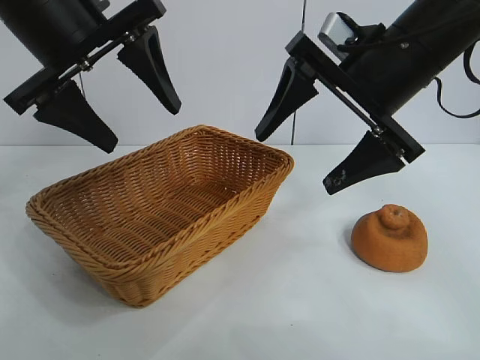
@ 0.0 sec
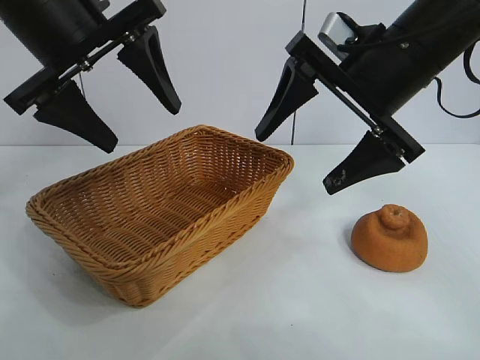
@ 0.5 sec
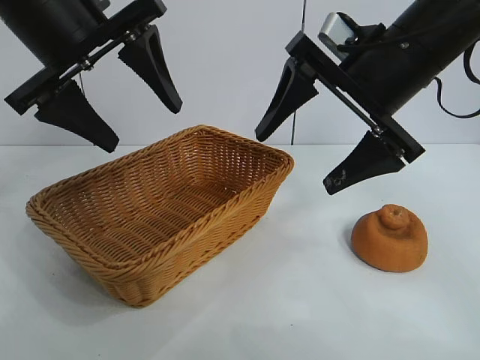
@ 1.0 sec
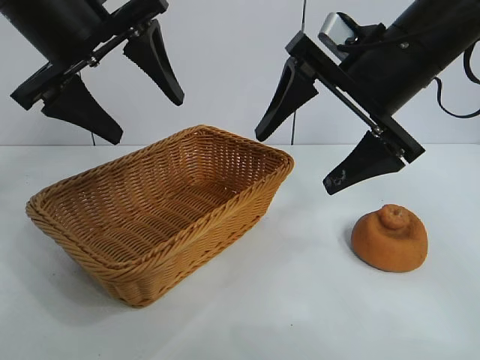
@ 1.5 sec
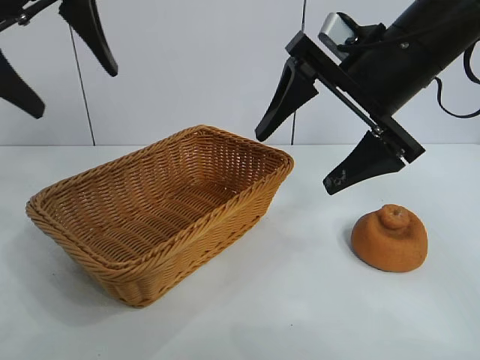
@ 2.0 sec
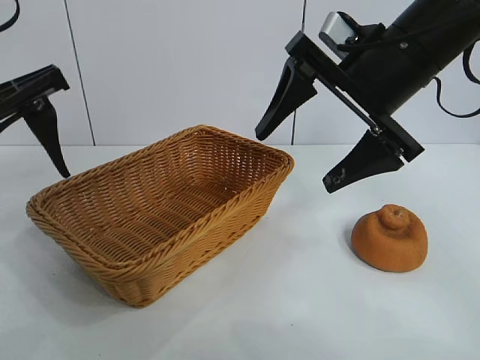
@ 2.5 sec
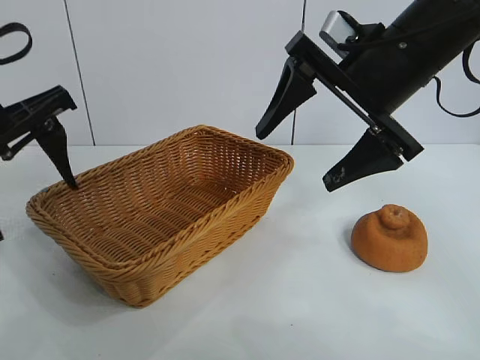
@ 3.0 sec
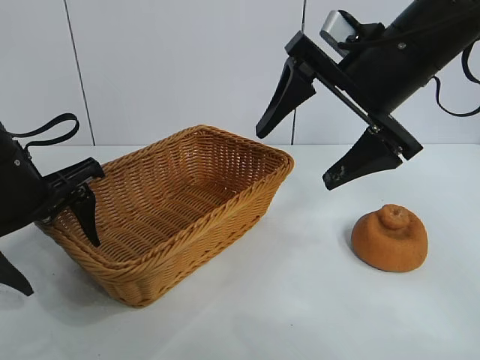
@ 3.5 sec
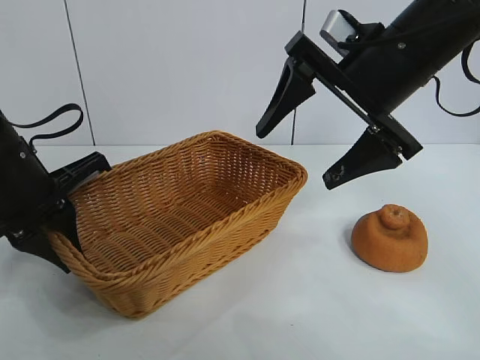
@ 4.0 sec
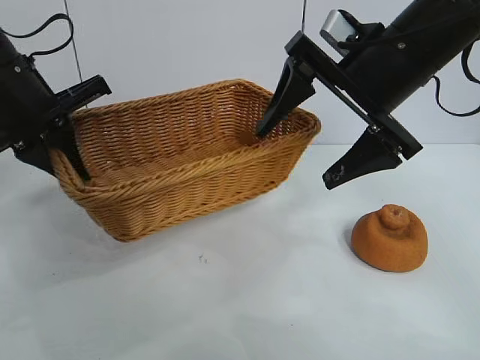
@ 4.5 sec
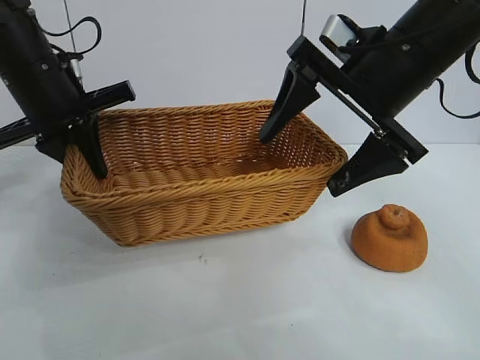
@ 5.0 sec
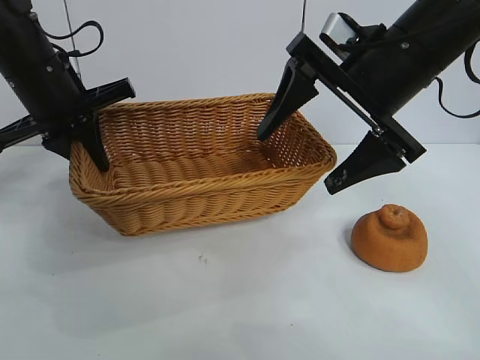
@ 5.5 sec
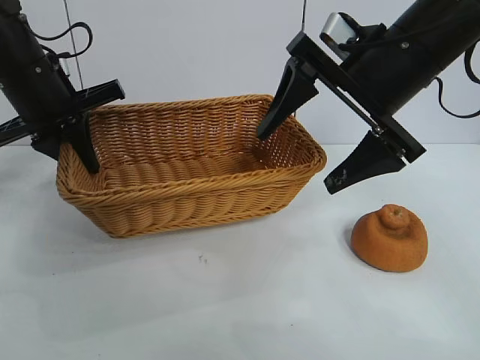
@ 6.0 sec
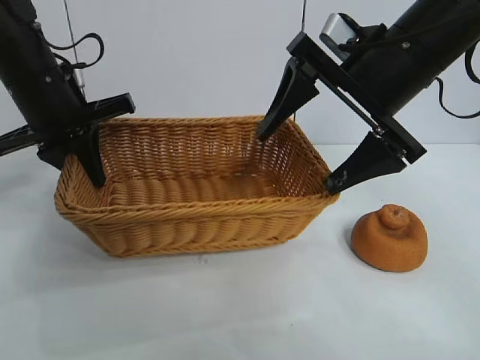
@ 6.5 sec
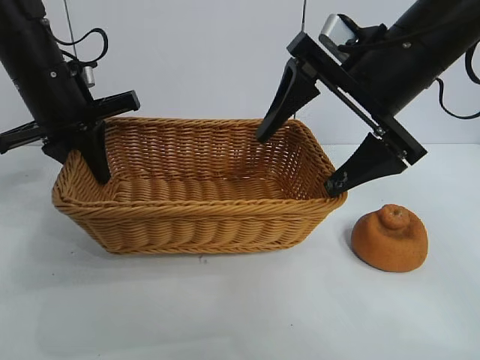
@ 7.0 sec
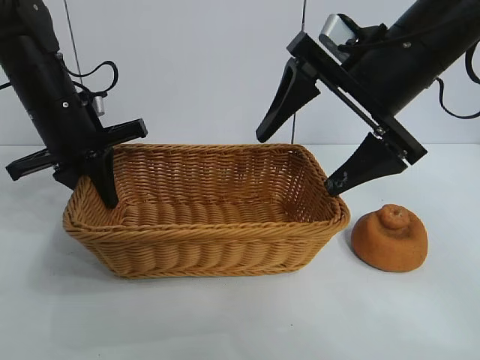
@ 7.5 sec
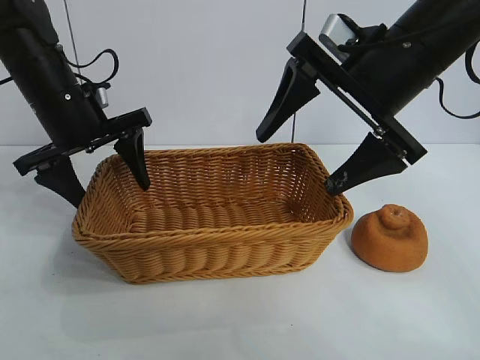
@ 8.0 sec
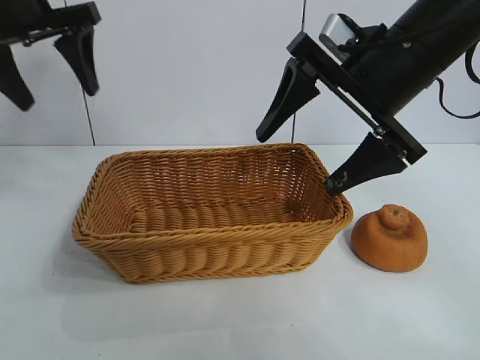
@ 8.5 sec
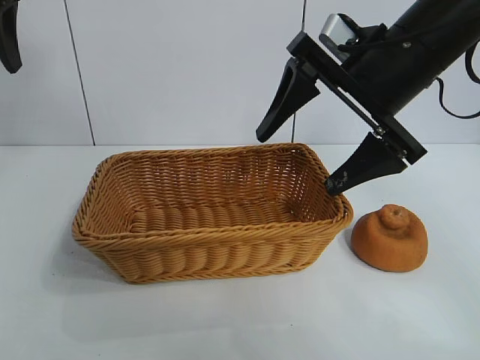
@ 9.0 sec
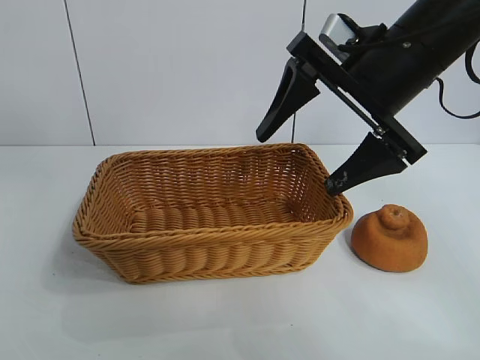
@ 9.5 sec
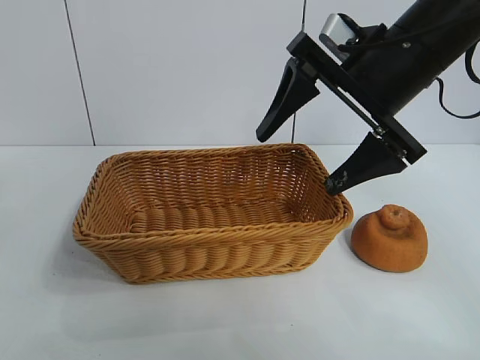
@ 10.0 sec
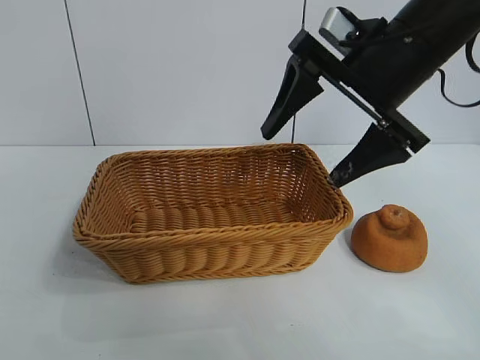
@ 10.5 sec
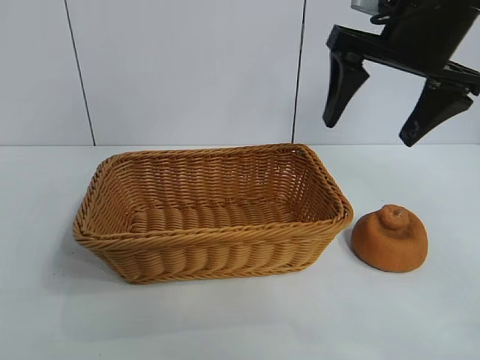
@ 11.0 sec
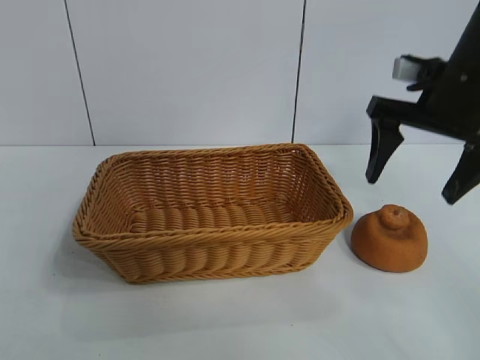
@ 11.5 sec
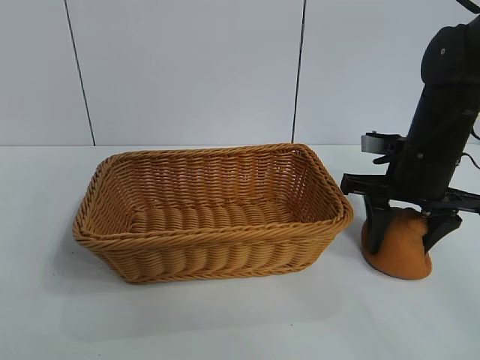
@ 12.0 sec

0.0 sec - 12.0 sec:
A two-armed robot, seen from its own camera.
Task of the whole recording: pick up the orange and put it into the basket.
Step, 1.0 sec - 3.5 sec: Grasp the basket with left gripper.
Step, 4.0 sec - 7.5 sec: Place the basket in the center of view with left gripper.

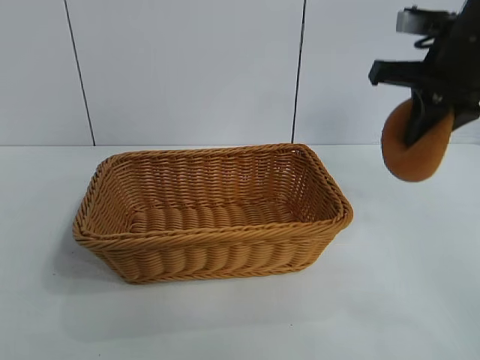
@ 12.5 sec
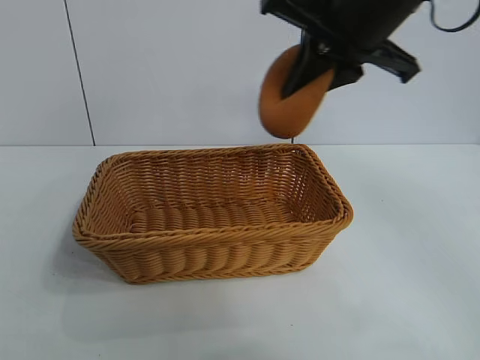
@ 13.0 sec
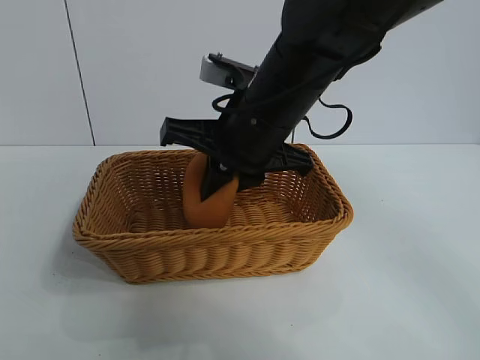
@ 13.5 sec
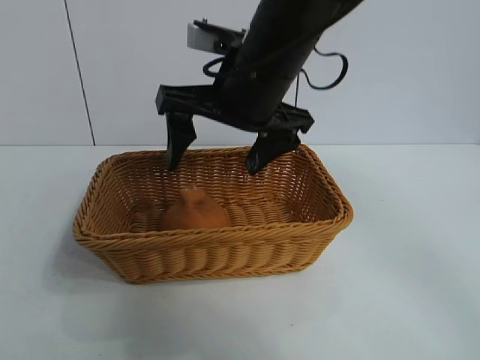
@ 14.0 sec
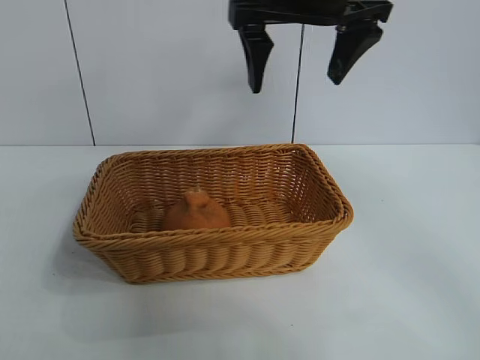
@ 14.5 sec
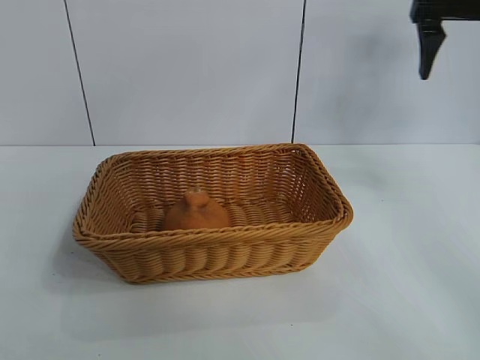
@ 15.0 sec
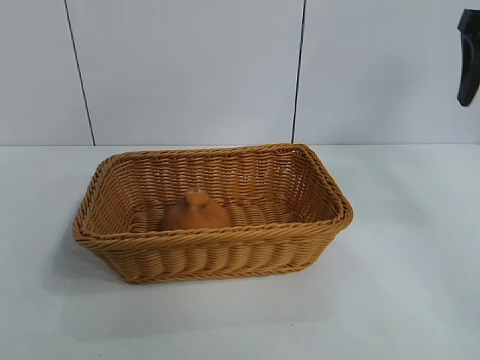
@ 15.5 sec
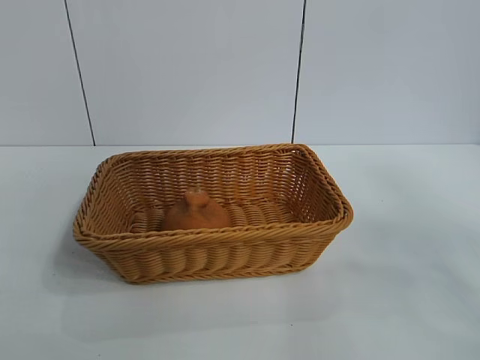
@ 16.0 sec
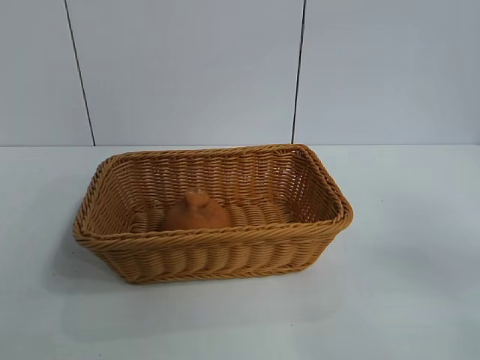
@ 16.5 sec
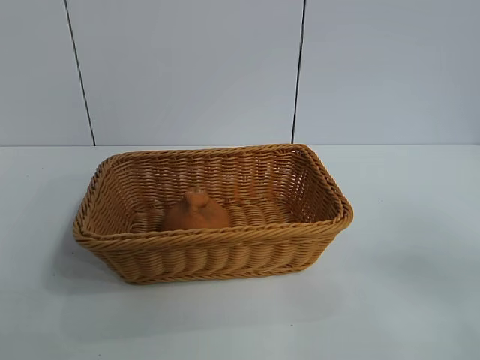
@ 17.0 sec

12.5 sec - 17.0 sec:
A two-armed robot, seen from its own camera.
Task of the whole recording: pick up the orange and put it into the basket.
Step, 12.5 sec - 14.0 sec: Place the orange in the basket with right gripper.

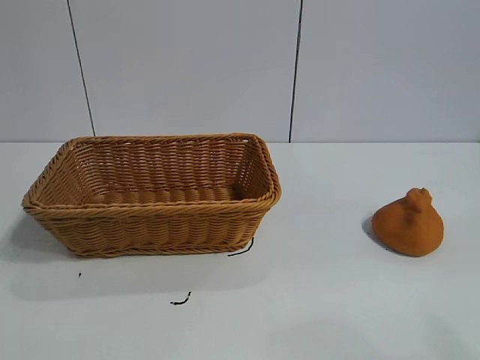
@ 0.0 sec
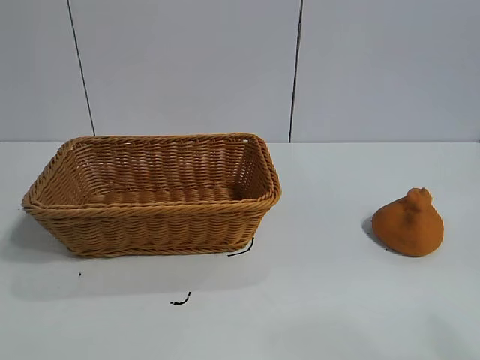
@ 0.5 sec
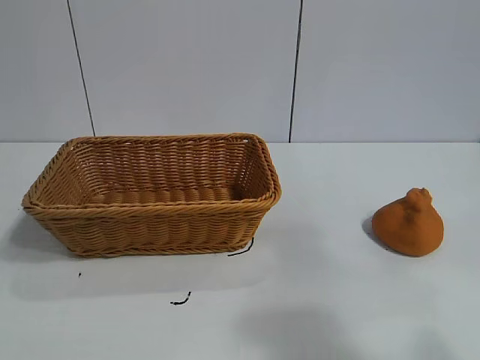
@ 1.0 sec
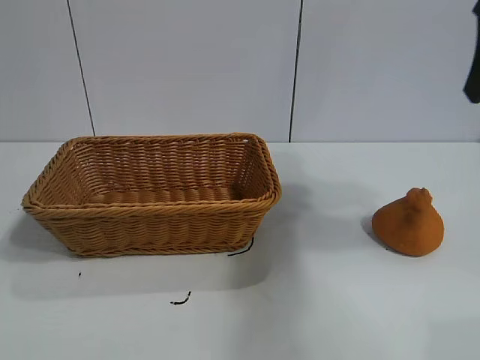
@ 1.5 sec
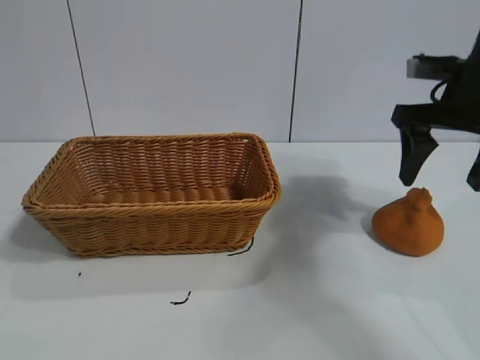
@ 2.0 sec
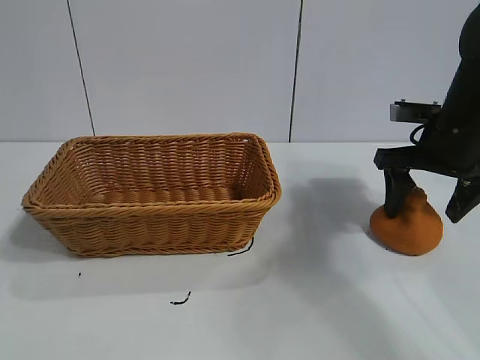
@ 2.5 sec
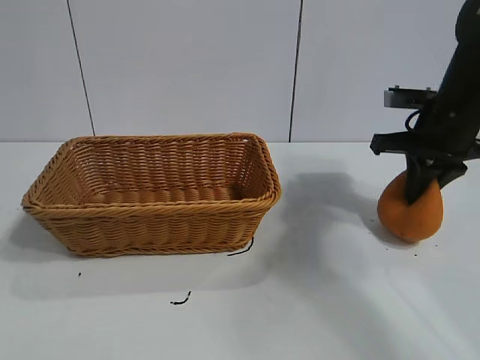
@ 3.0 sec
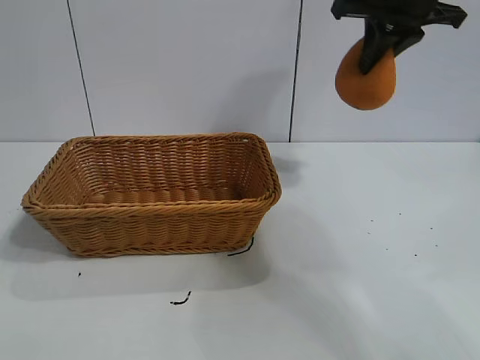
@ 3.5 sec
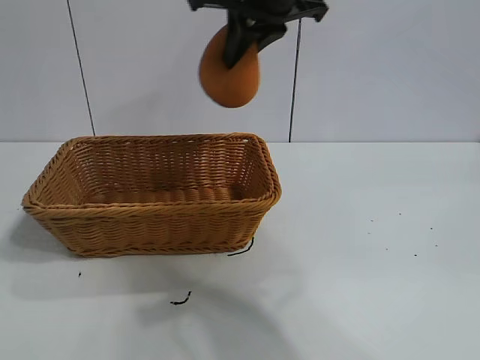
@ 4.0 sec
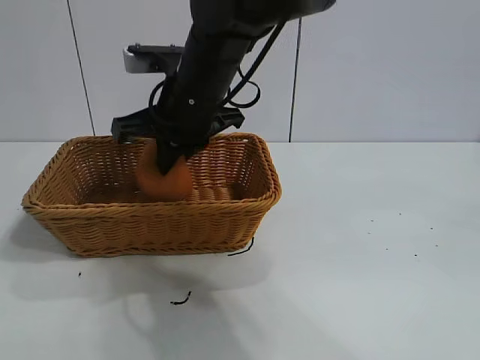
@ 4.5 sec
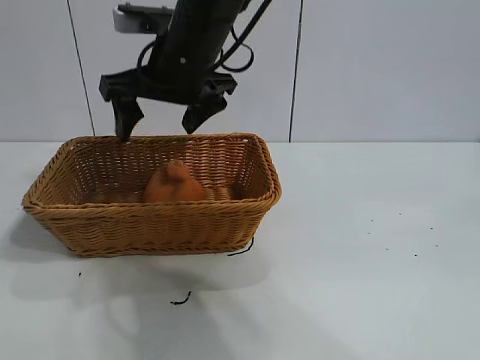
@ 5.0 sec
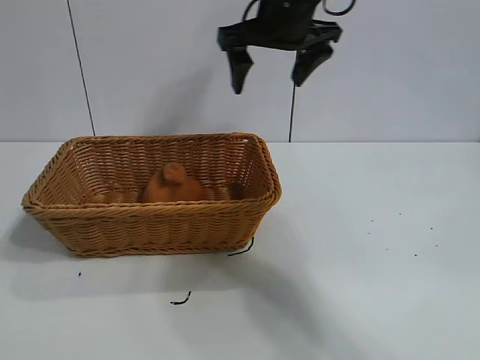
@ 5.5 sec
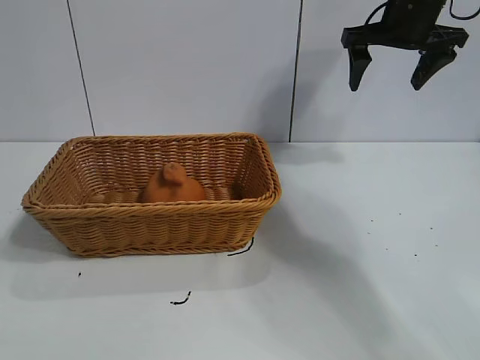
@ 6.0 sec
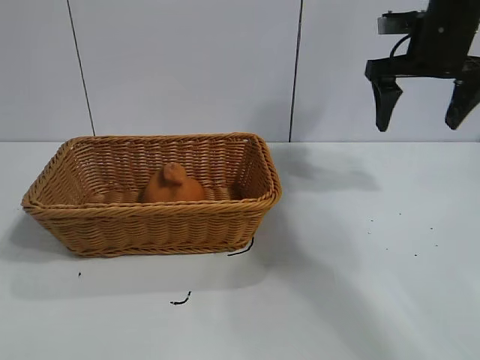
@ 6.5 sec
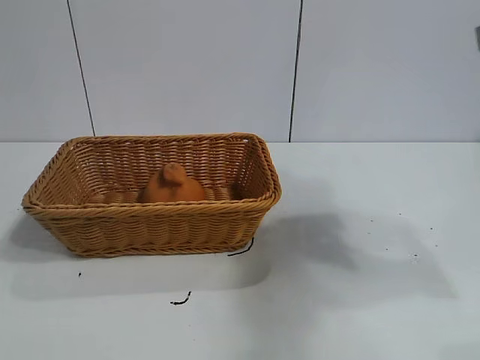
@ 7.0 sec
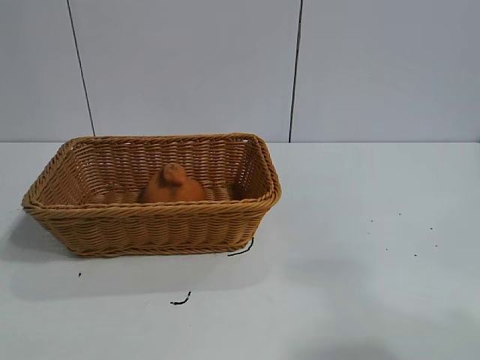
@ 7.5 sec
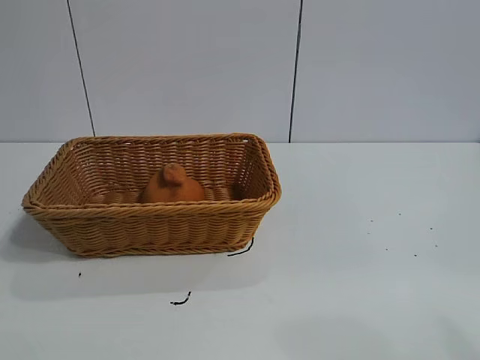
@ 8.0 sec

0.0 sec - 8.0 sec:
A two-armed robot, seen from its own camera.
Task of the whole recording: pick up the orange and put it into the basket.
Step, 1.0 sec - 2.5 sec: Grasp the orange with right gripper.
Step, 3.5 sec - 4.5 sec: Place the orange in the basket with right gripper.
